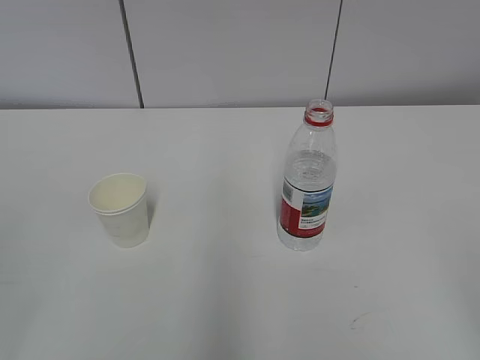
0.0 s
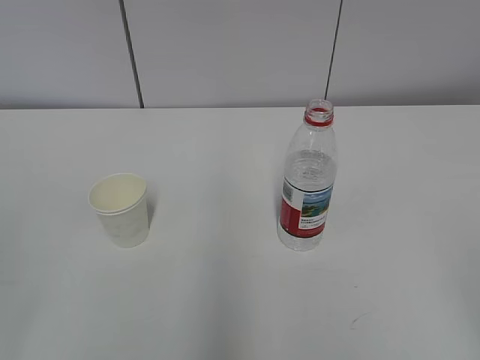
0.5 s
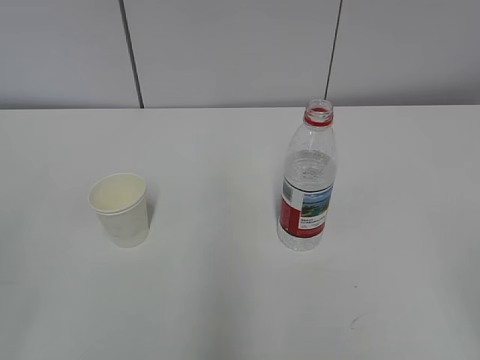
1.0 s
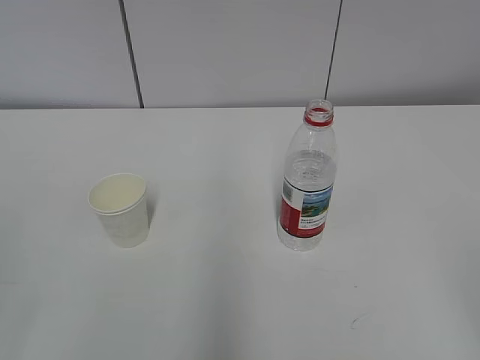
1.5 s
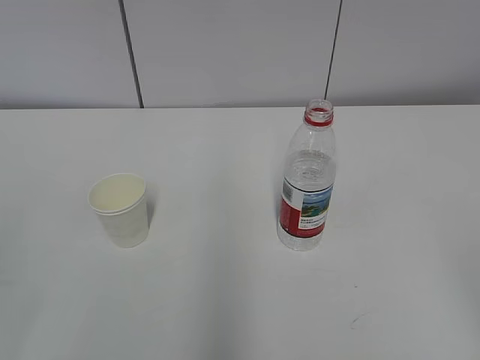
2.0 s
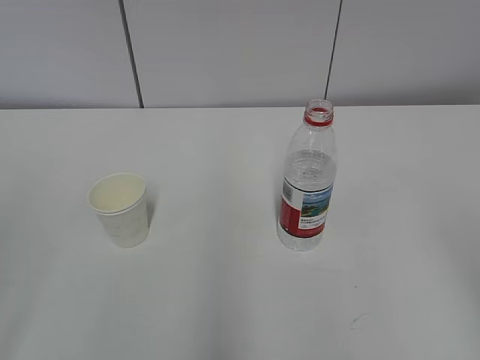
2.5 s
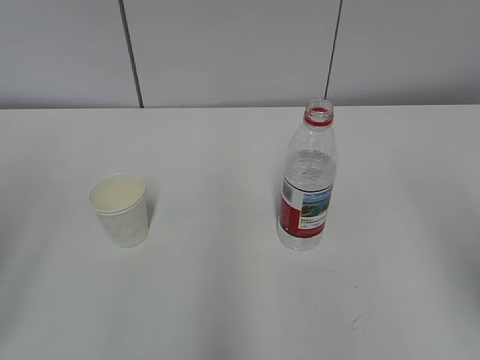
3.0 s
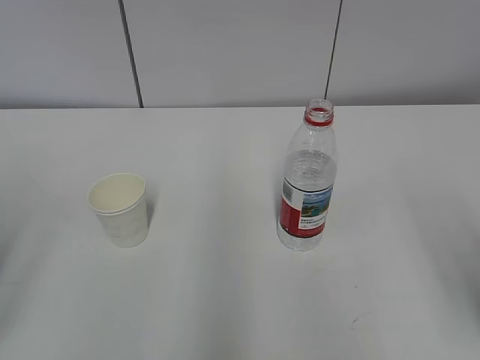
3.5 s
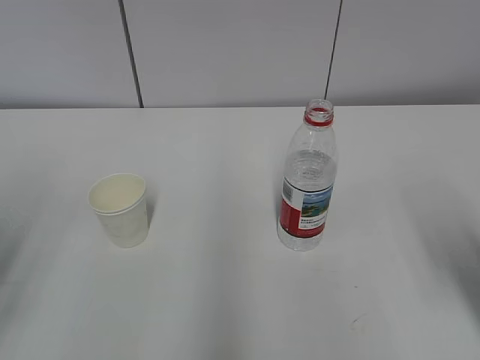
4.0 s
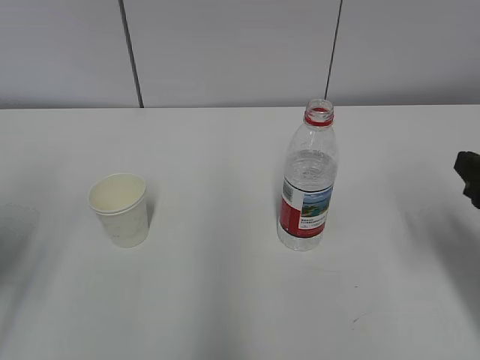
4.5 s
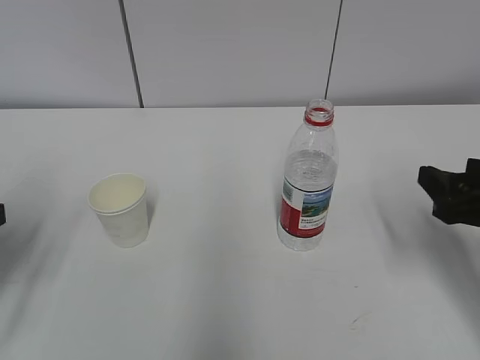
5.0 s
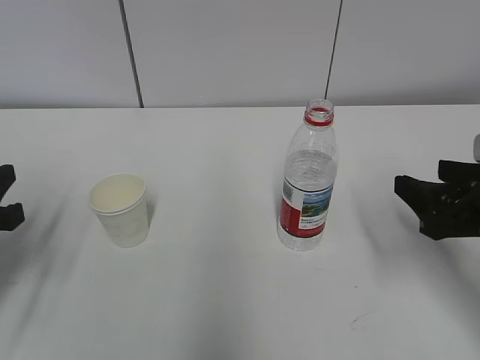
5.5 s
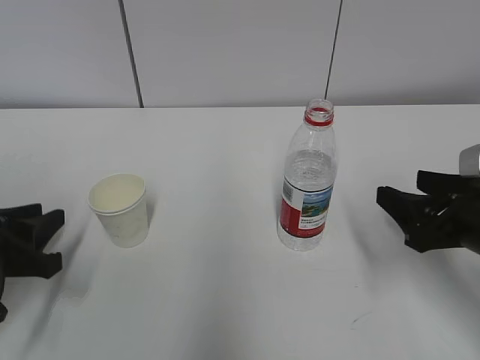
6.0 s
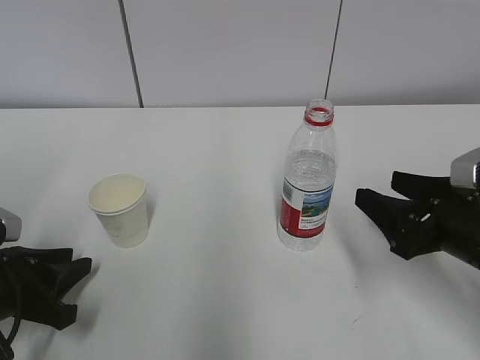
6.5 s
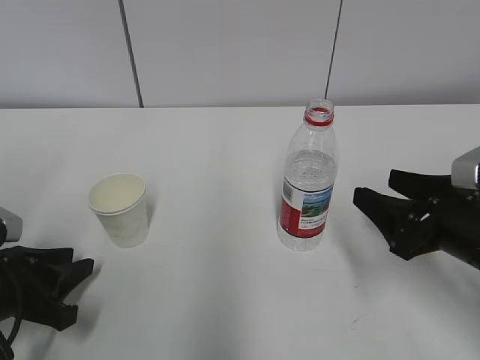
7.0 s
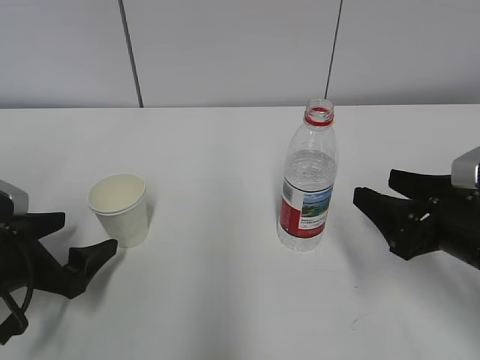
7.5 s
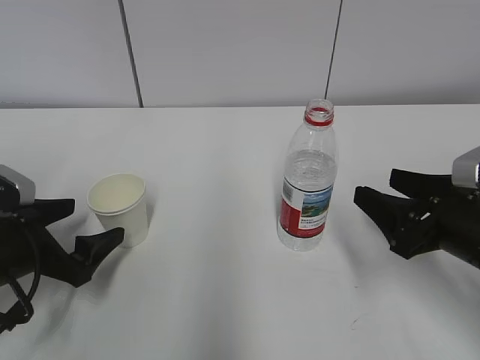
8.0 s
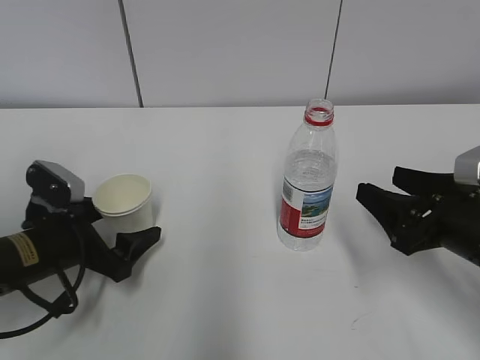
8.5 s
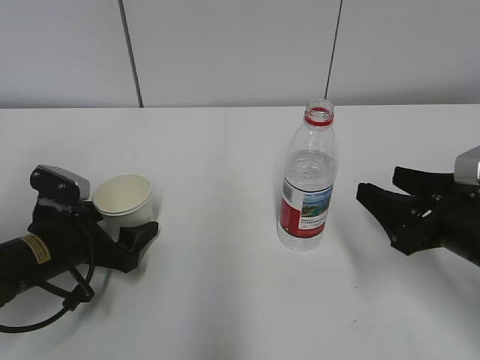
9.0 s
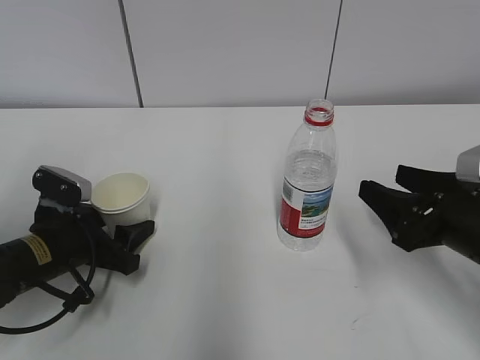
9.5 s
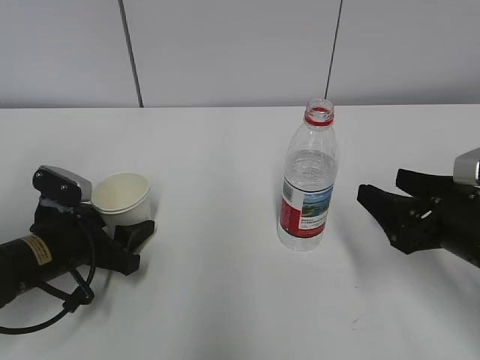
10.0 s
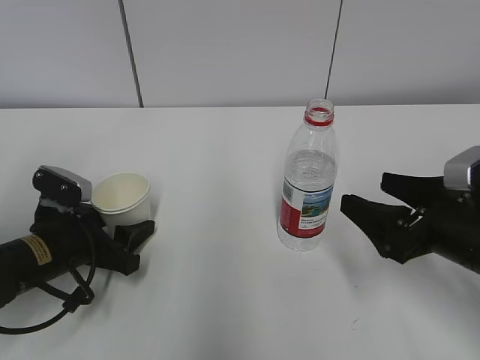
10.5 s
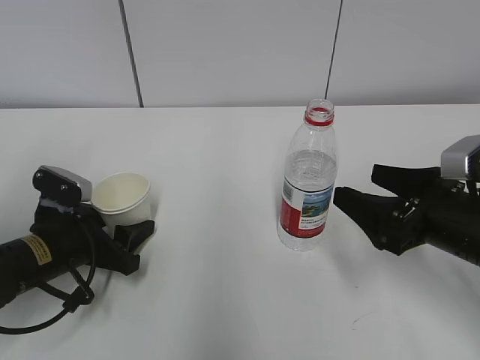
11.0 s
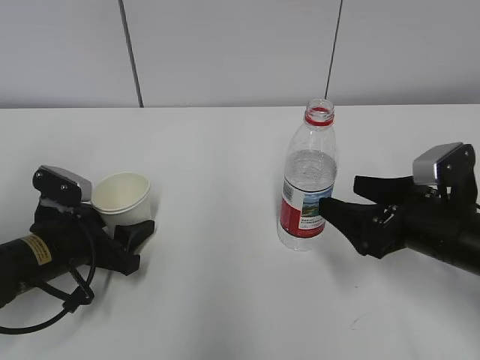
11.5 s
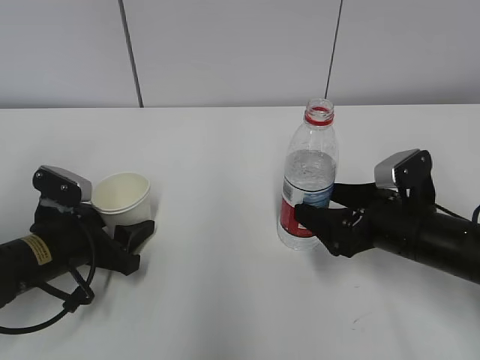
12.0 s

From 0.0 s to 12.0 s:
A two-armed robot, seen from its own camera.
Step, from 0.0 s to 11.0 s: Grab the paper cup with the left hand.
From 2.0 s to 4.0 s: The right gripper shifts roughly 15 cm forward.
From 4.0 s to 6.0 s: The left gripper shifts about 15 cm downward and forward, while the right gripper moves forward and downward, approximately 10 cm.
From 6.0 s to 8.0 s: The left gripper opens up.
From 8.0 s to 10.0 s: The left gripper moves roughly 5 cm, and closes.
From 10.0 s to 12.0 s: The right gripper moves about 10 cm, and opens its fingers.

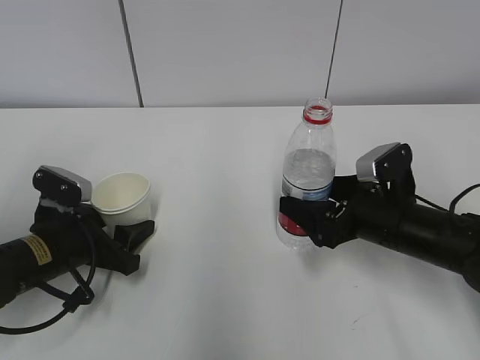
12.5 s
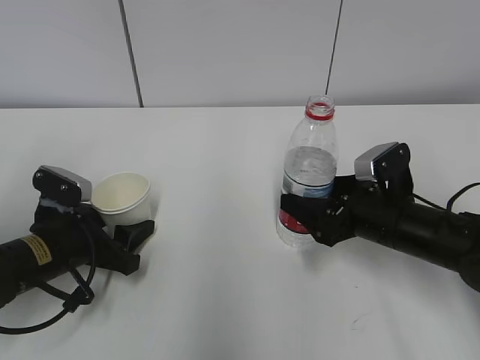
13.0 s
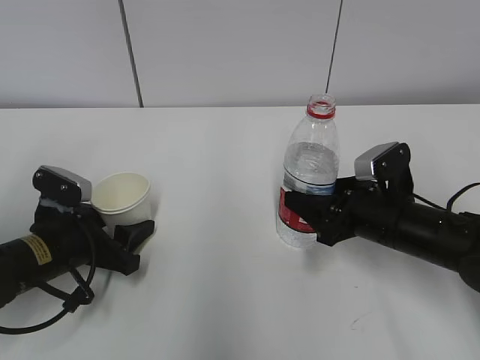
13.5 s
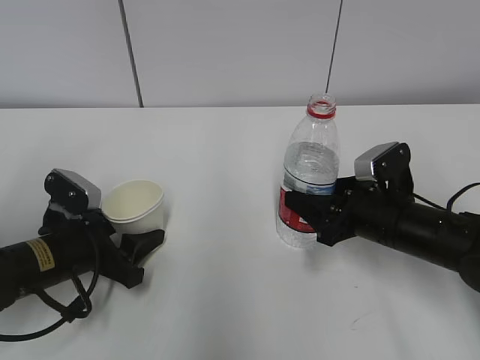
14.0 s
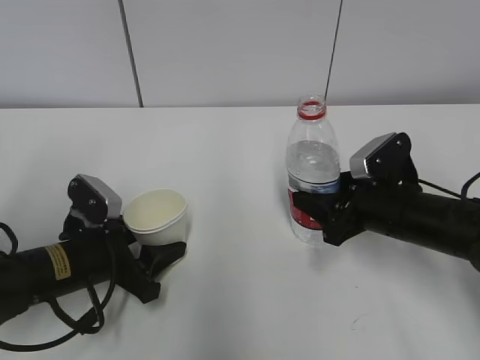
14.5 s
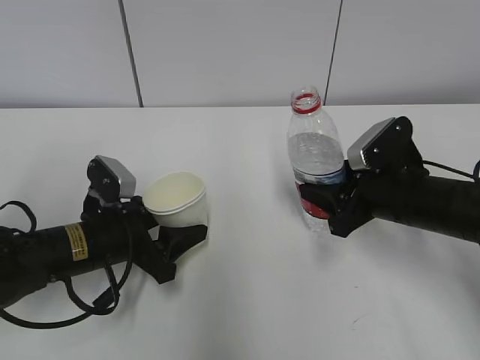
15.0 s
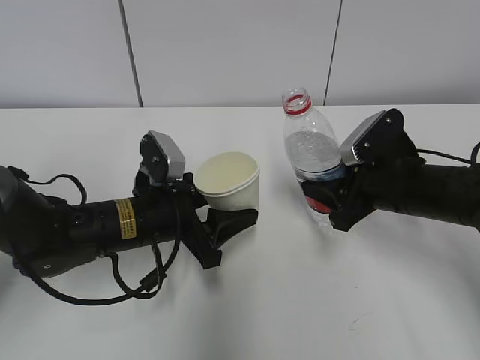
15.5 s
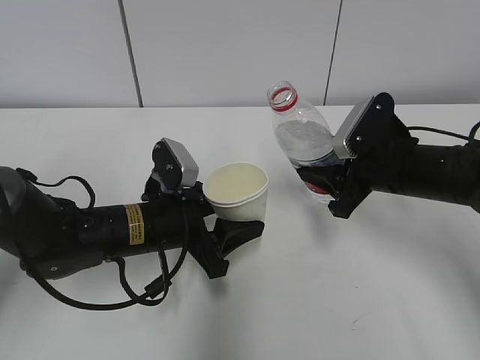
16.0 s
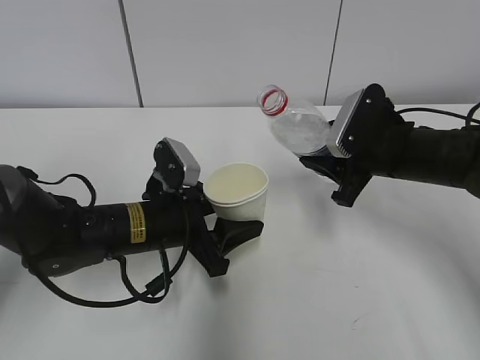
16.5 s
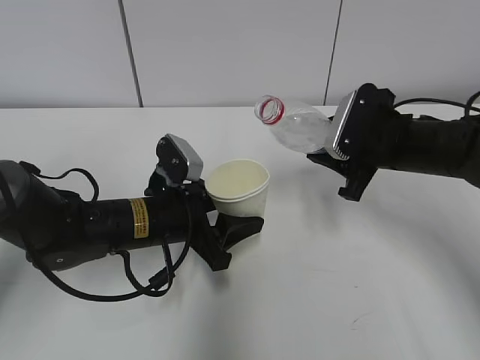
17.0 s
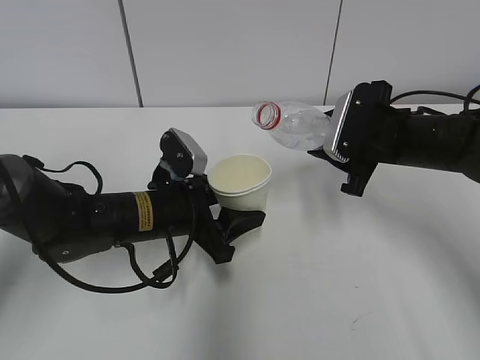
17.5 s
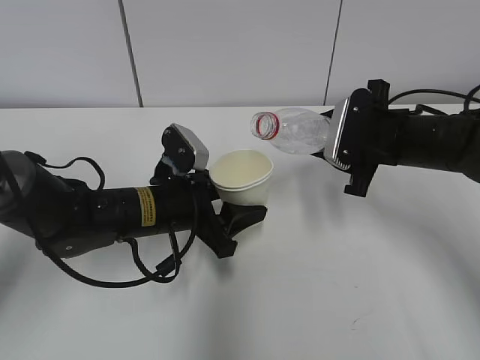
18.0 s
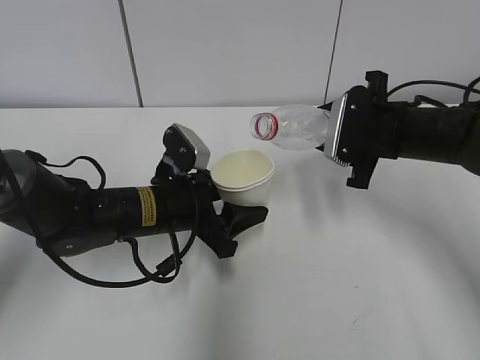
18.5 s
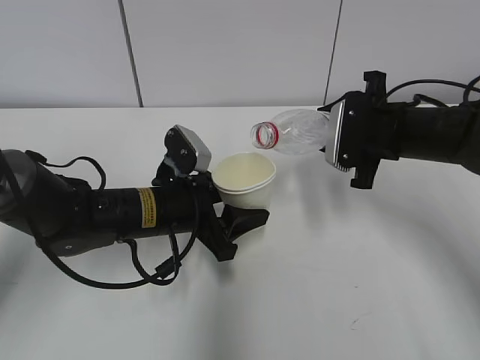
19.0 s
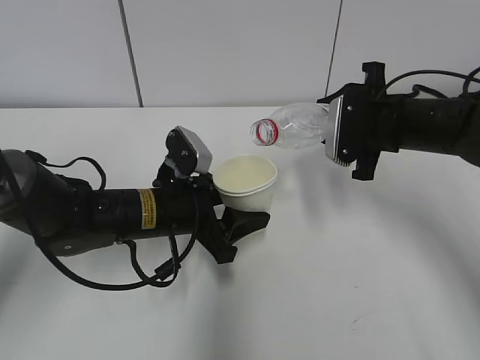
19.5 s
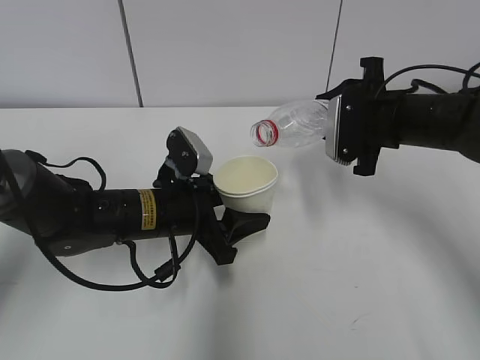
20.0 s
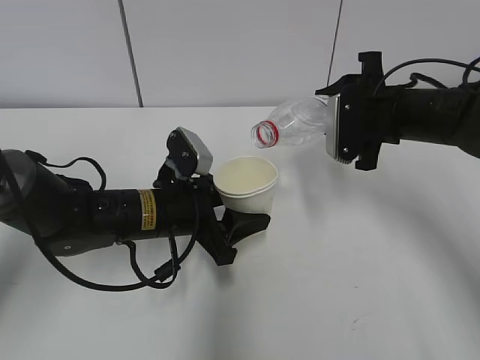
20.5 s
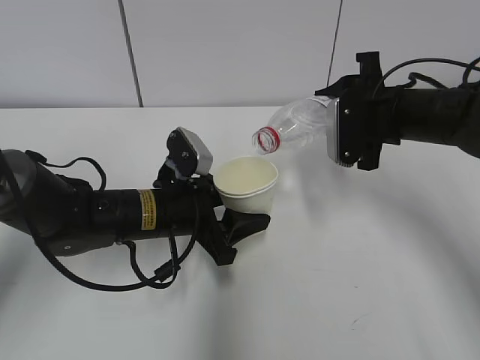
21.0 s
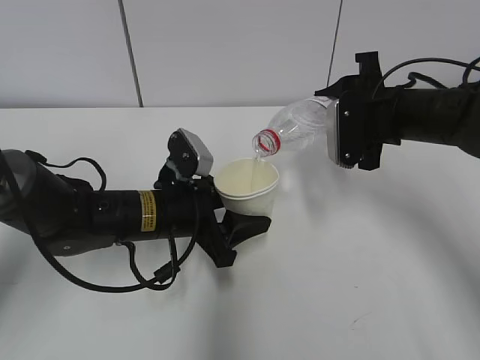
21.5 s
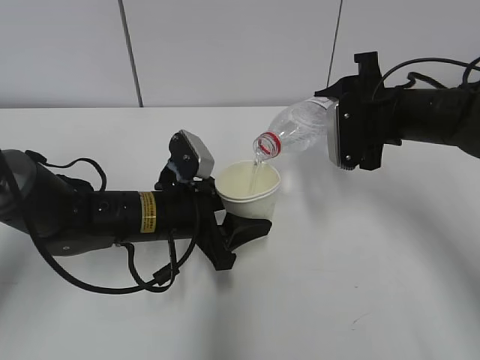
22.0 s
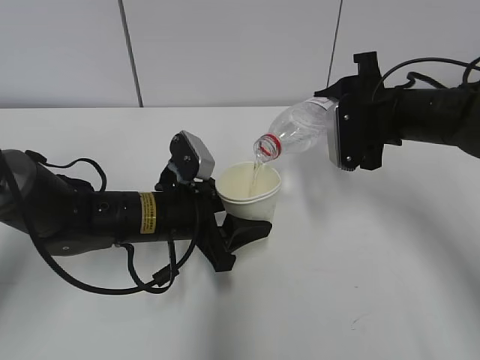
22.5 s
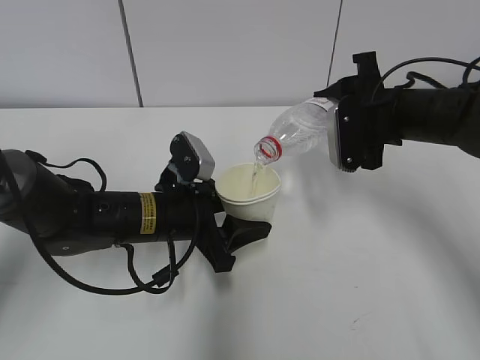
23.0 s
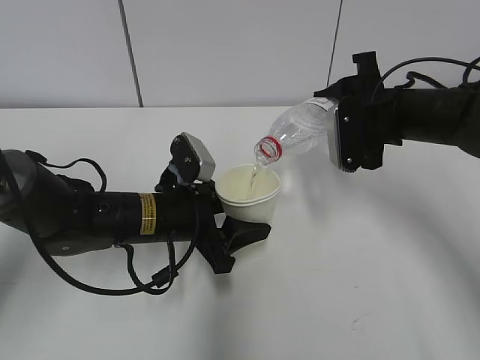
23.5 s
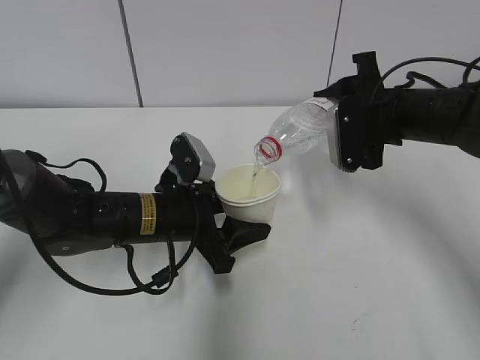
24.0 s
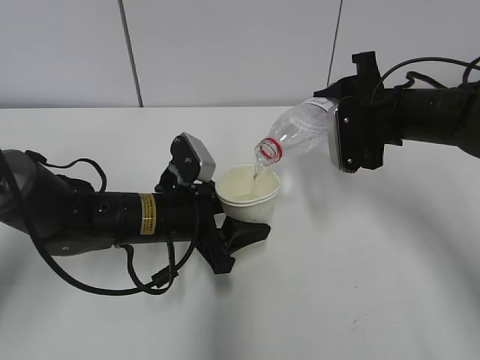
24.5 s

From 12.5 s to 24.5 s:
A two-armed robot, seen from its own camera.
Step, from 12.5 s to 17.5 s: Lift the paper cup with the left hand.
Step, from 18.0 s to 22.0 s: Fill water with the left hand.
Step, from 18.0 s to 22.0 s: Pour water with the right hand.
From 12.5 s to 14.5 s: The right gripper closes its fingers.
From 14.5 s to 16.5 s: The left gripper is displaced to the right by roughly 10 cm, while the right gripper moves upward, approximately 5 cm.
From 18.5 s to 20.5 s: There are only small adjustments of the grippers.
From 20.5 s to 22.5 s: The grippers move only a little.
From 22.5 s to 24.5 s: The two grippers keep their place.

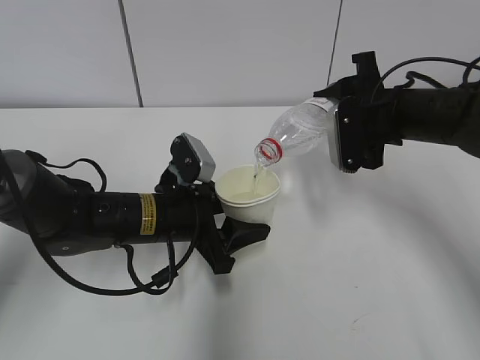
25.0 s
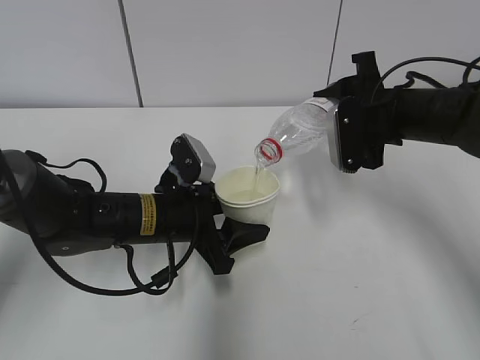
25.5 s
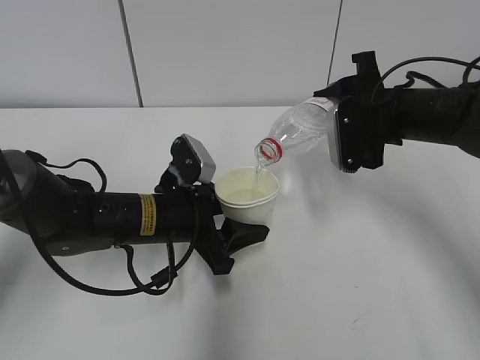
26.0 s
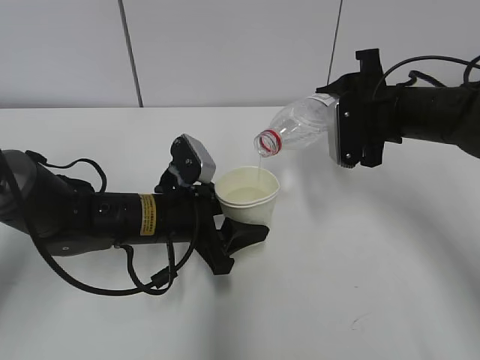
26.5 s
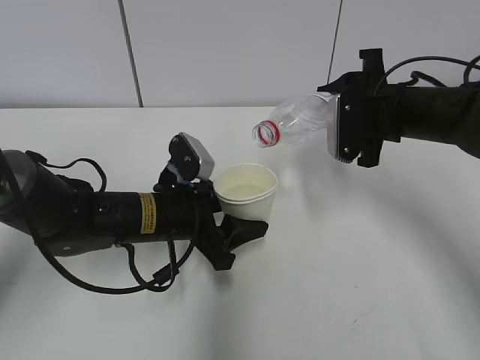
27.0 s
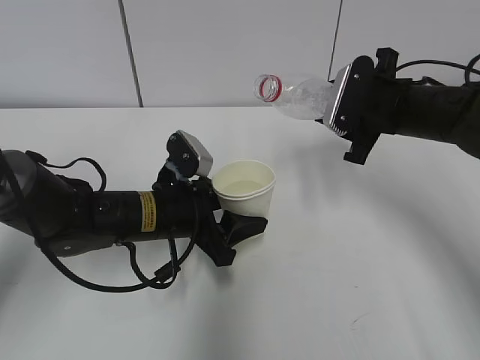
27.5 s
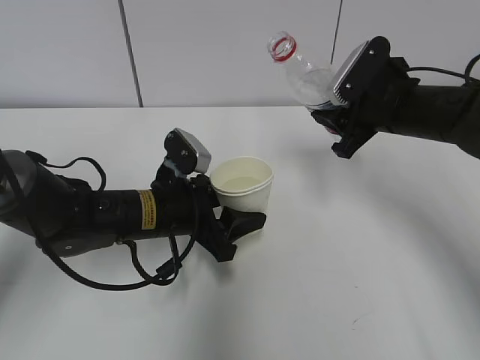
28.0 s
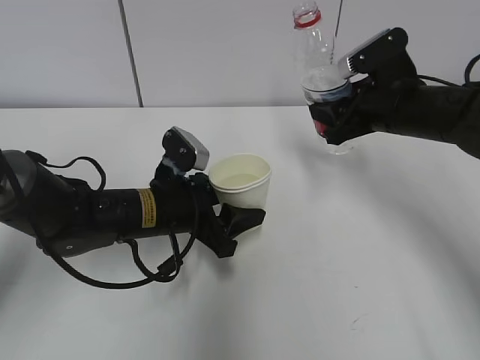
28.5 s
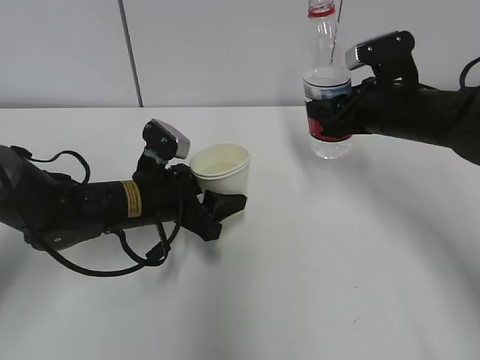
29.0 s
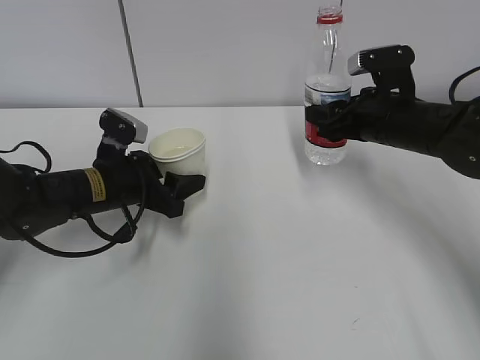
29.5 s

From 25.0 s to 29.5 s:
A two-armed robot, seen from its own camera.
Step, from 25.0 s to 29.0 s: Place the paper cup with the left hand.
From 25.0 s to 27.0 s: The grippers stay close to where they were, moving slightly.
From 27.0 s to 29.5 s: The left gripper is displaced to the left by approximately 10 cm.
